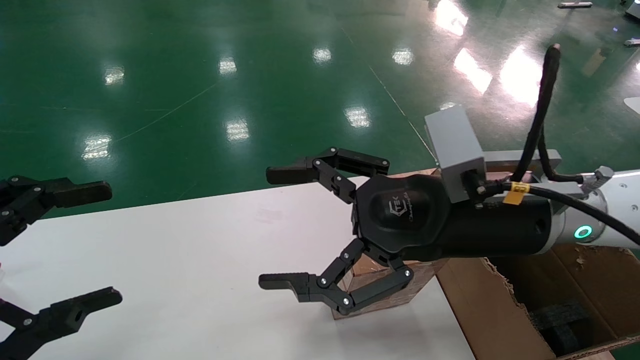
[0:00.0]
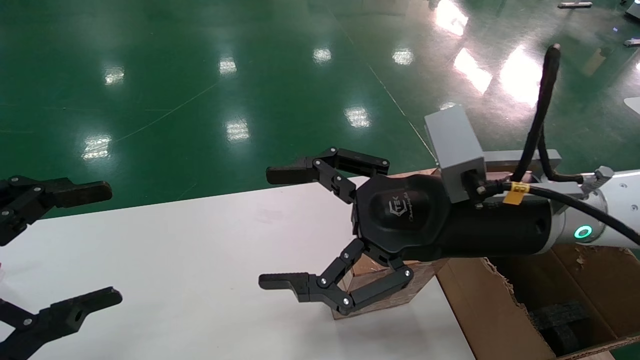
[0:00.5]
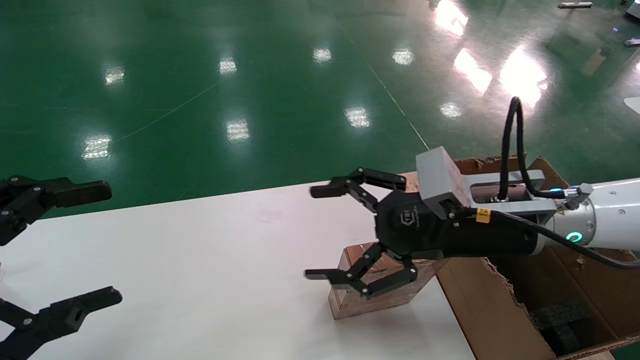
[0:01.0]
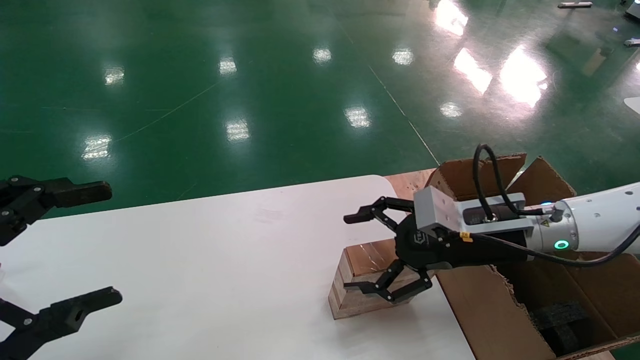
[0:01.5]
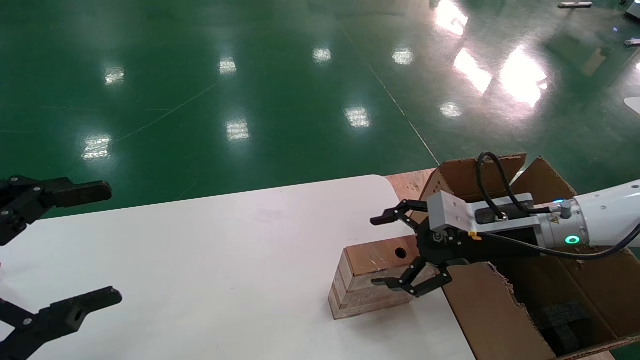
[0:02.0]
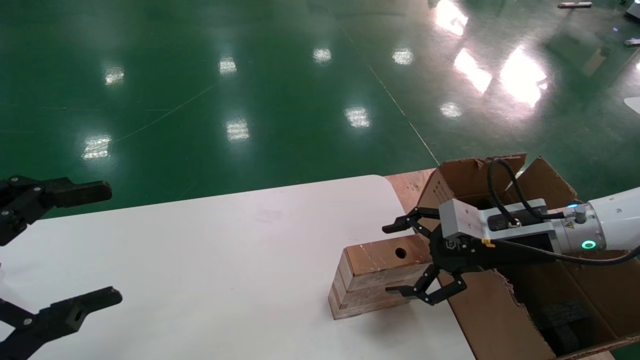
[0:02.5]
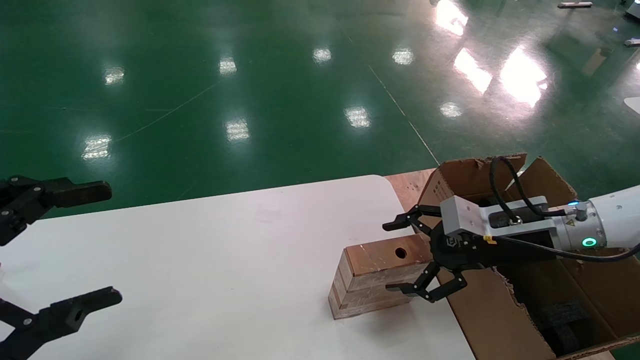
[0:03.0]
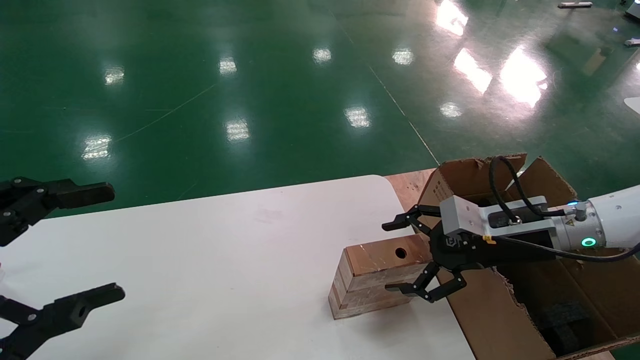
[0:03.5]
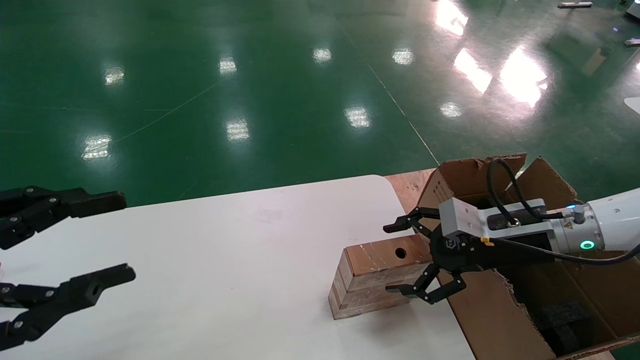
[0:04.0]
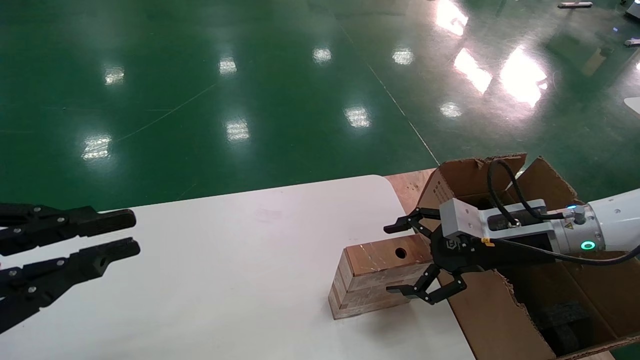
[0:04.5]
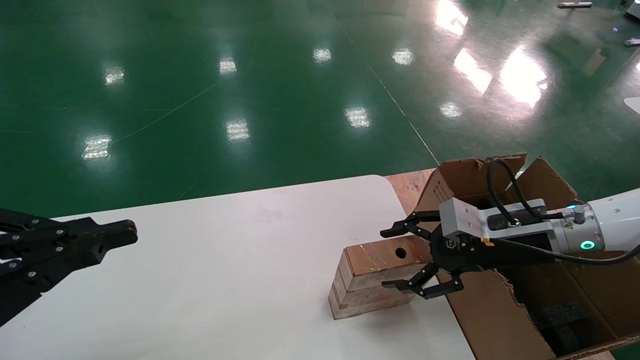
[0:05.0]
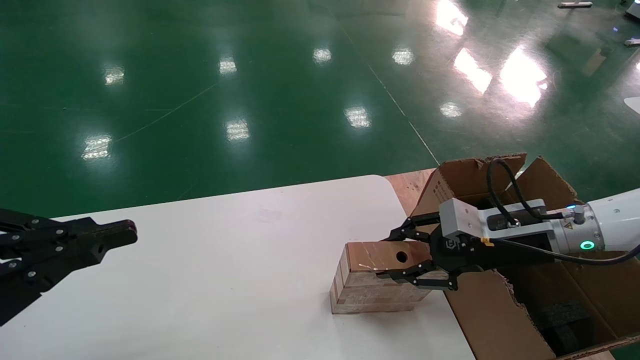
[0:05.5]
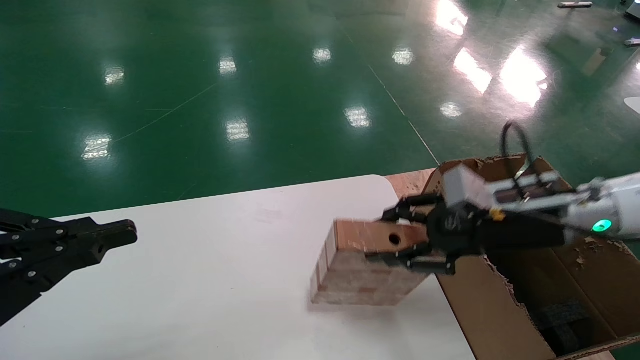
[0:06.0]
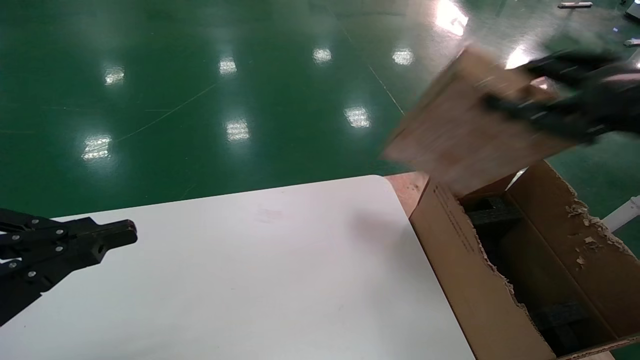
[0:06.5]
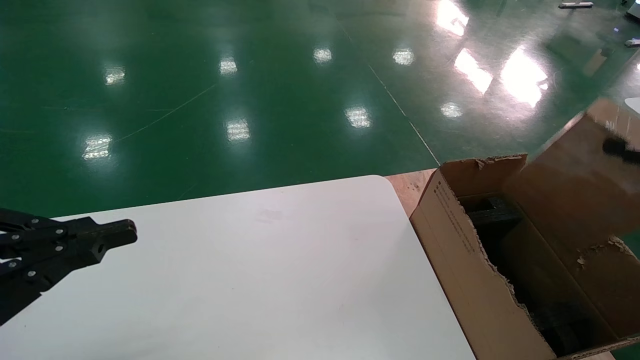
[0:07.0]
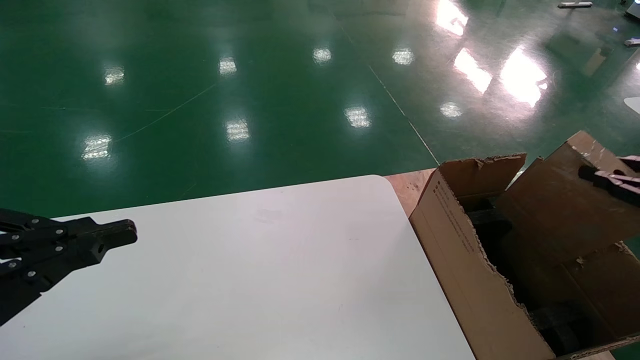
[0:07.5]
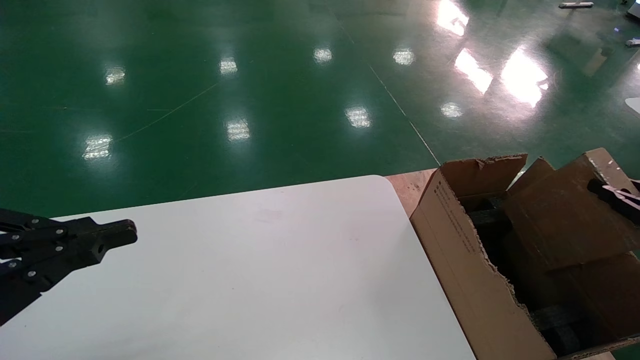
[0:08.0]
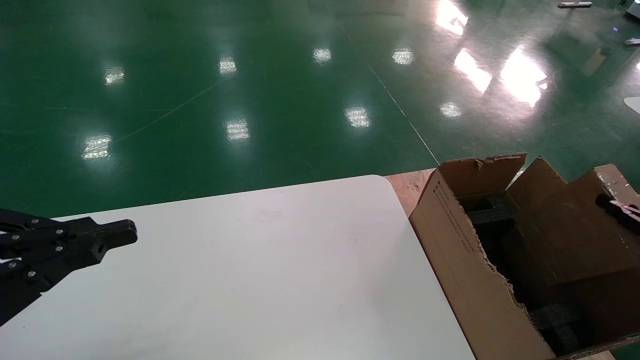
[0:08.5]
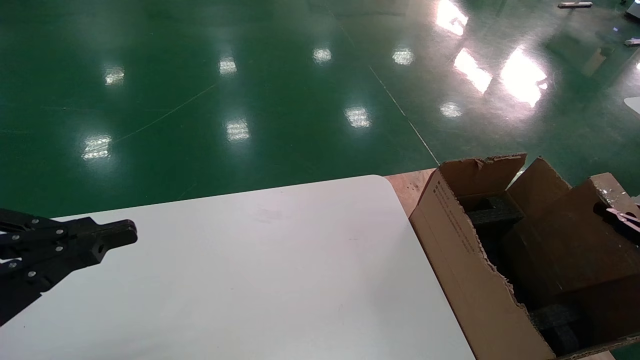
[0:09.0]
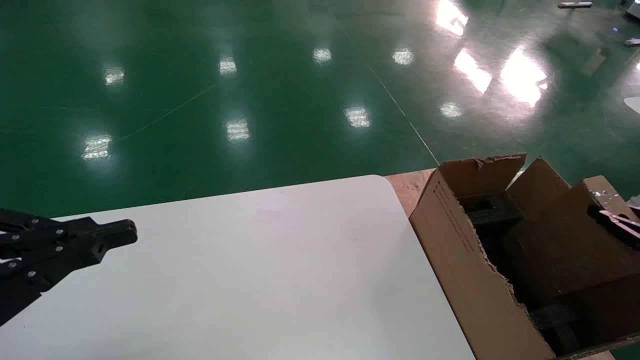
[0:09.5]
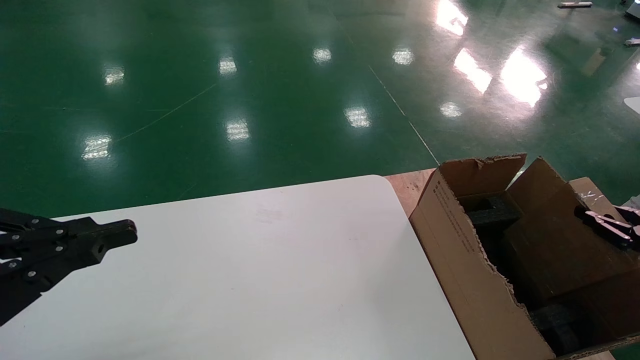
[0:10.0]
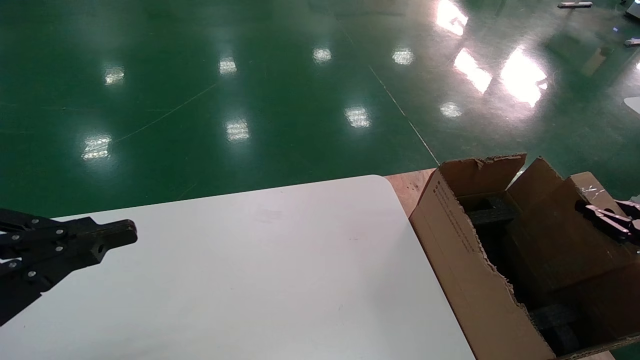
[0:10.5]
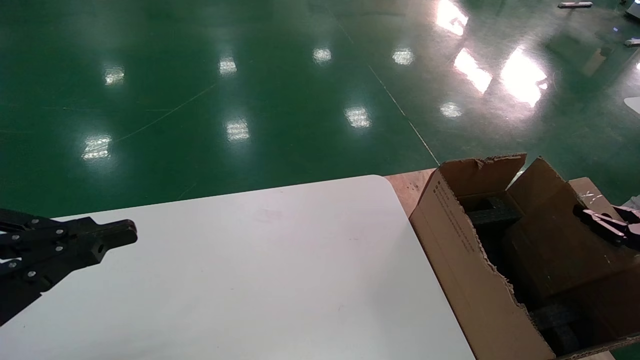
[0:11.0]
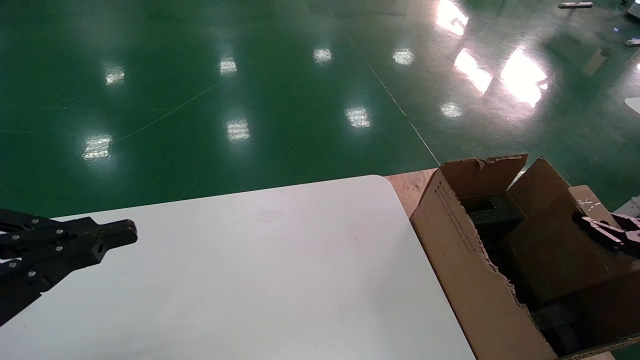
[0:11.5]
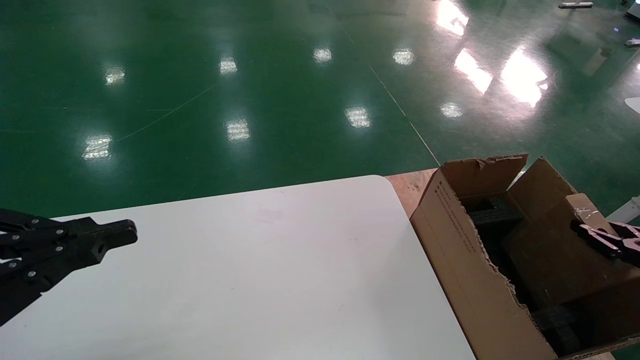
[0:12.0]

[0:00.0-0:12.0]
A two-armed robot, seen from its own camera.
Task of the whole recording: put the box on the table into the big box.
Step, 0:01.0 to 0:05.5: Pick up the mouse and the power cord paper box.
0:00.0 to 0:02.0: The right gripper heads to the right, downward and forward, covering some 15 cm.
0:02.0 to 0:04.0: The grippers make only small movements.
0:04.0 to 0:06.0: The right gripper goes about 5 cm upward, and closes; the left gripper closes its fingers.
0:06.0 to 0:08.0: The right gripper is displaced to the right and backward by some 30 cm.
0:08.0 to 0:10.0: There are only small adjustments of the grippers.
0:10.0 to 0:12.0: There are only small adjustments of the grippers.

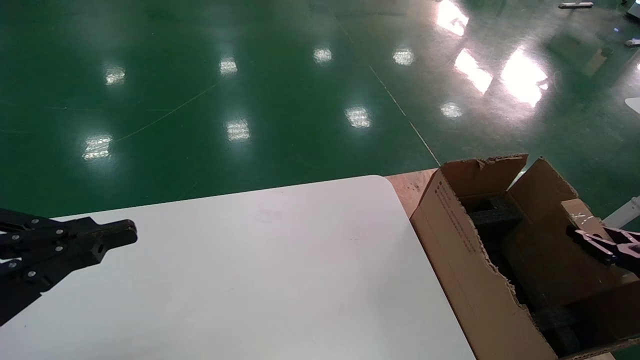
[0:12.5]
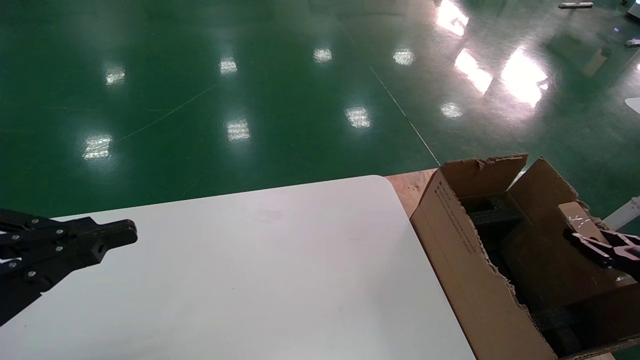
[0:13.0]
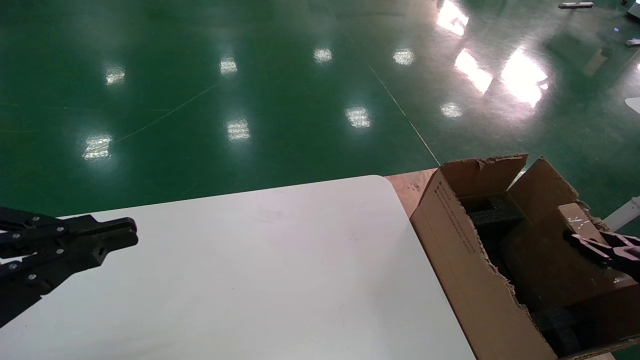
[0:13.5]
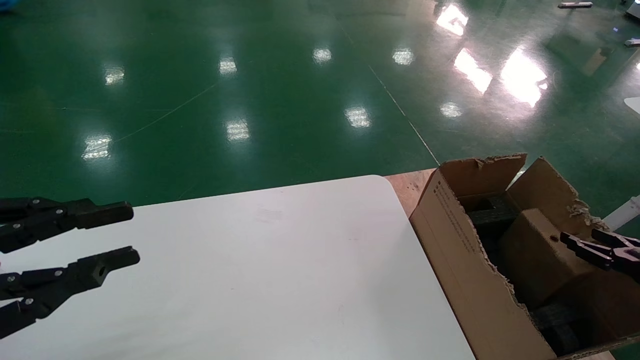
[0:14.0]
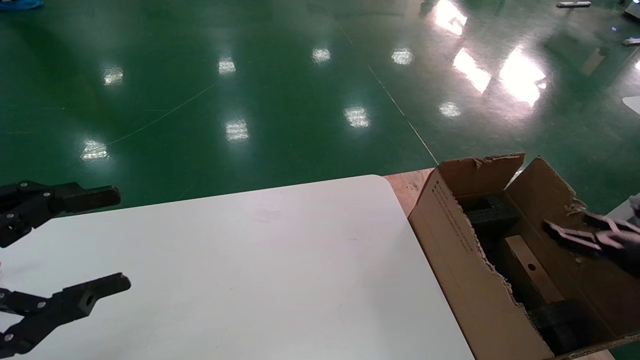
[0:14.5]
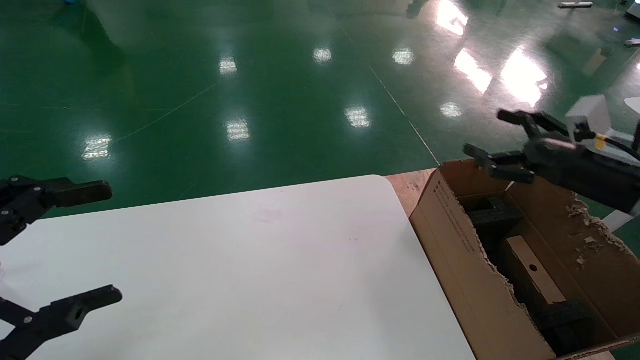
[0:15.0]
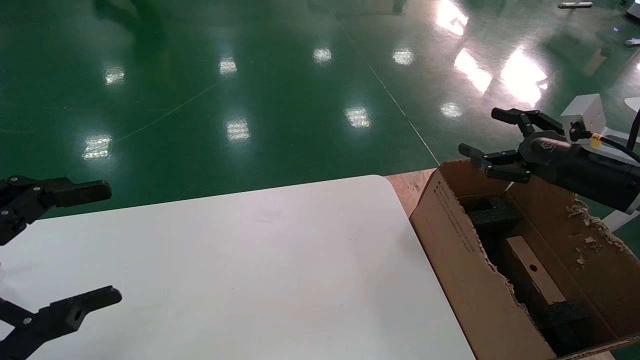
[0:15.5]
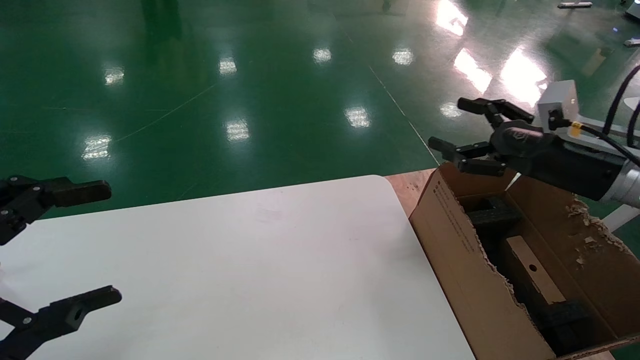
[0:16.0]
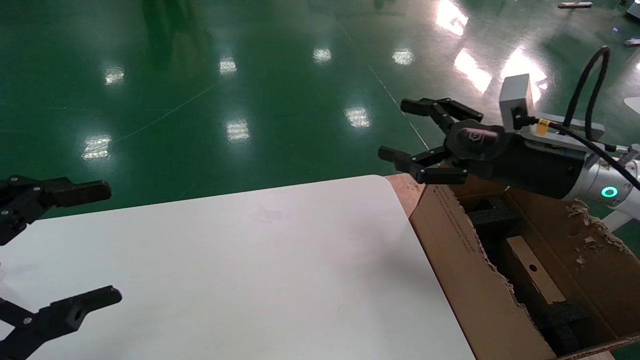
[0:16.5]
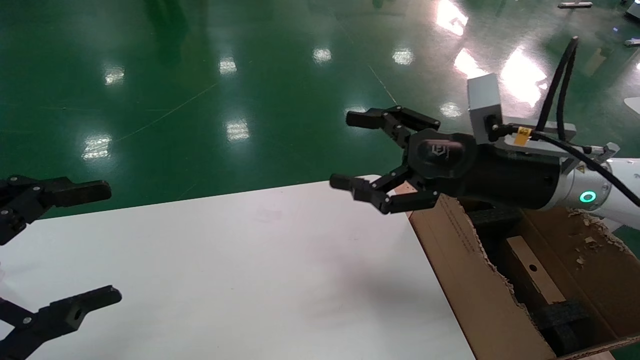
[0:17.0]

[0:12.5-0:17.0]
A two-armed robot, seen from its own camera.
Task of the whole recording: put the box on the table into the big box.
0:12.5 to 0:14.5: The right gripper moves about 5 cm, and opens, while the left gripper opens up.
0:14.5 to 0:17.0: The right gripper is displaced to the left and upward by roughly 30 cm. Meanwhile the left gripper opens.

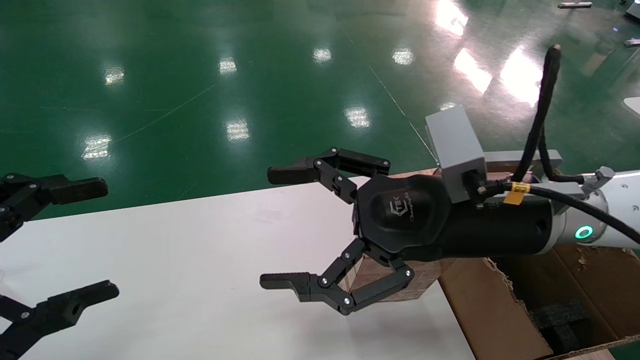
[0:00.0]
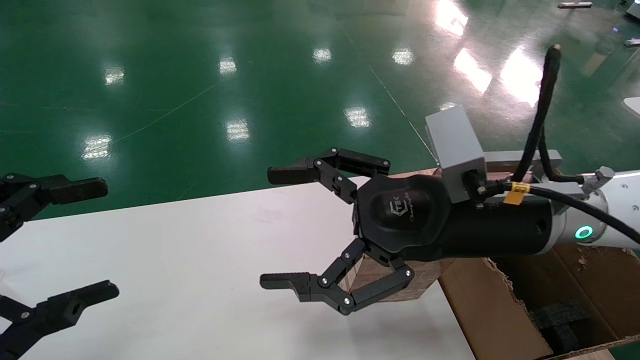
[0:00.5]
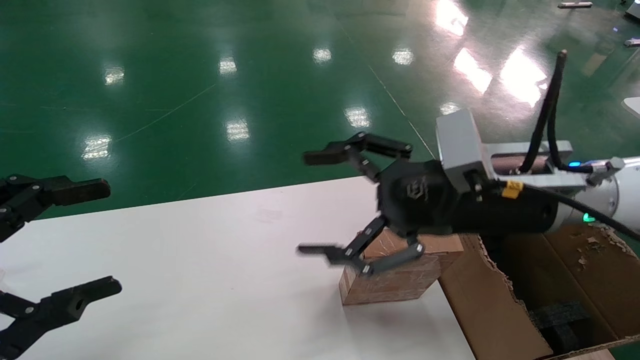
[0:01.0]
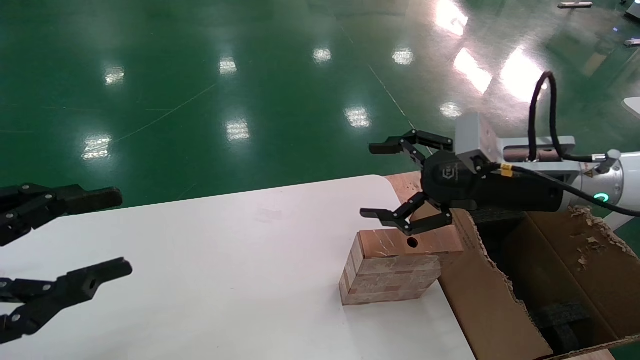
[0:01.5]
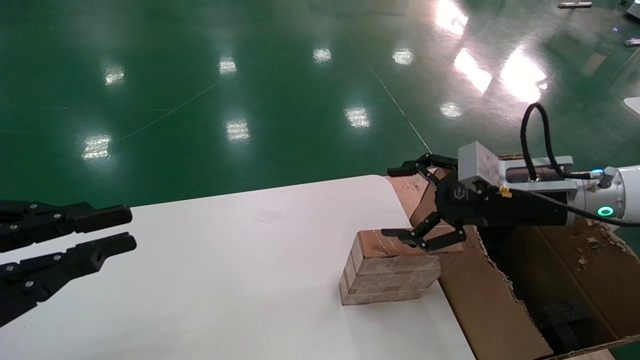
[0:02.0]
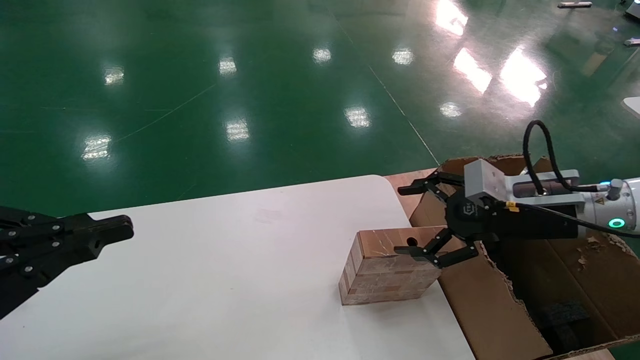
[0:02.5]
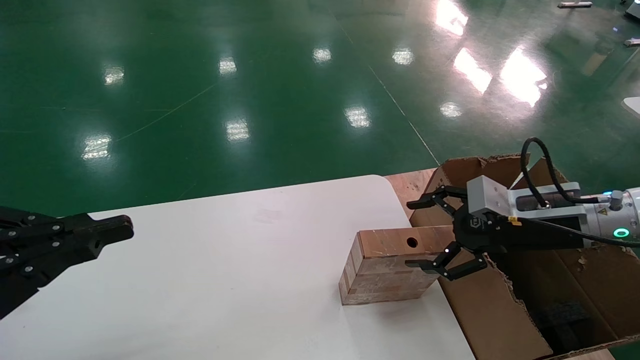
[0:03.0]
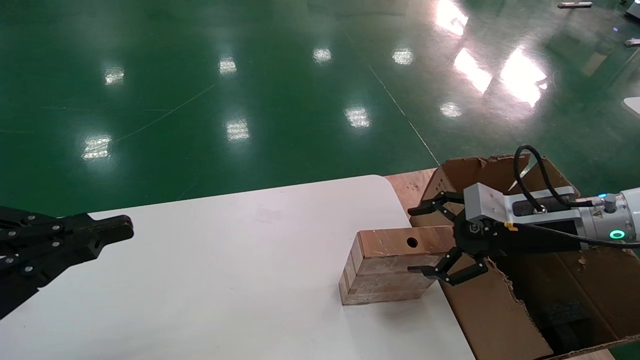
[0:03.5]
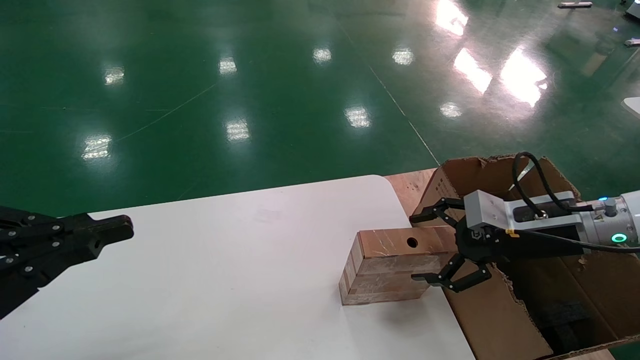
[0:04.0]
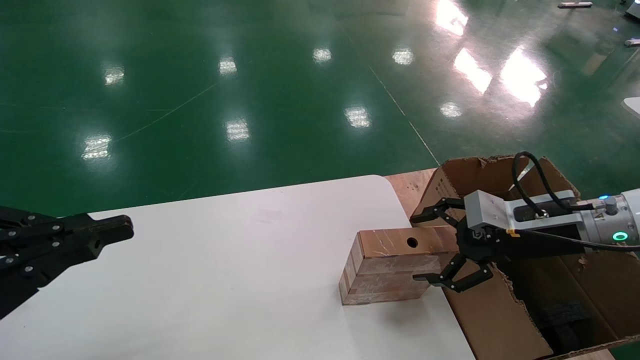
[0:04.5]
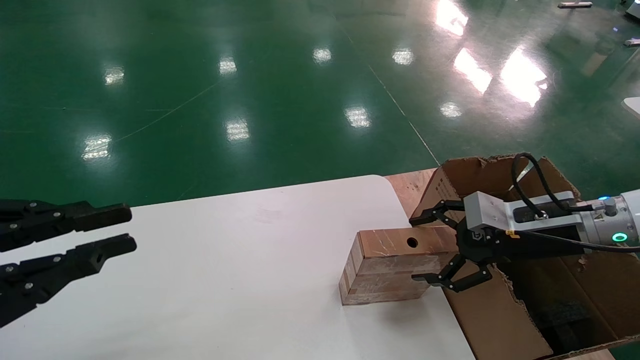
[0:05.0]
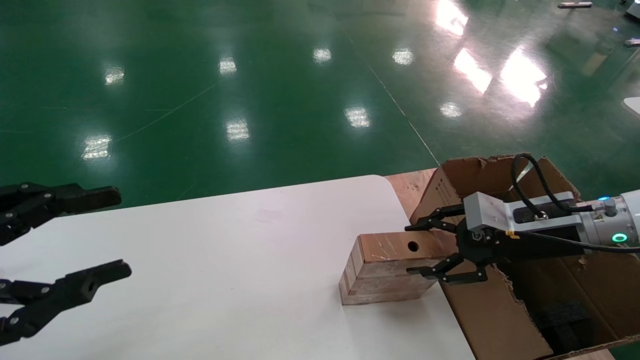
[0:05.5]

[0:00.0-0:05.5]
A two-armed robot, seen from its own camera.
Task of the whole recording: put the box on the table into the big box.
0:00.0 to 0:02.0: The right gripper is displaced to the right and forward by some 15 cm, while the left gripper closes up.
0:02.0 to 0:03.5: The right gripper shifts by approximately 5 cm.
0:03.5 to 0:05.5: The right gripper closes up; the left gripper opens its fingers.
